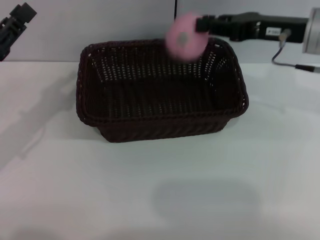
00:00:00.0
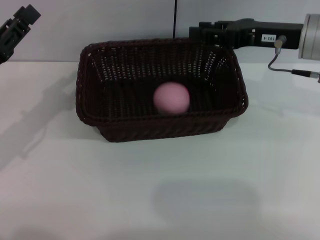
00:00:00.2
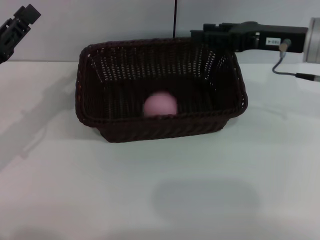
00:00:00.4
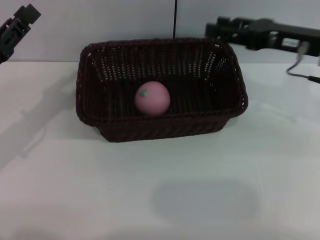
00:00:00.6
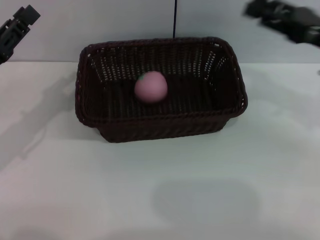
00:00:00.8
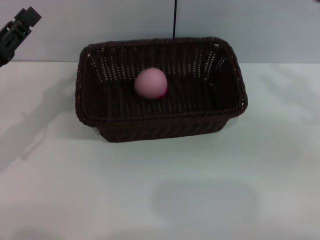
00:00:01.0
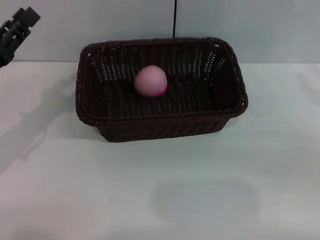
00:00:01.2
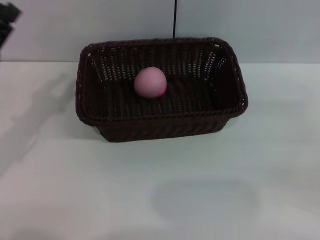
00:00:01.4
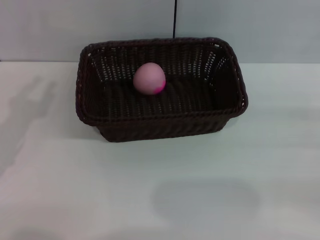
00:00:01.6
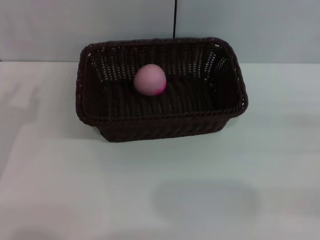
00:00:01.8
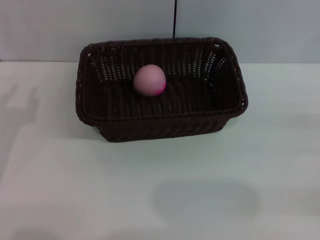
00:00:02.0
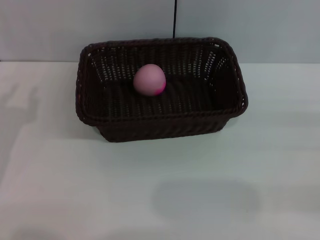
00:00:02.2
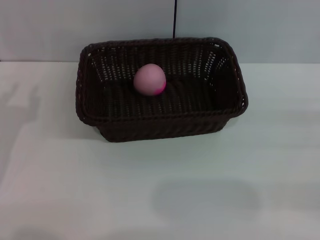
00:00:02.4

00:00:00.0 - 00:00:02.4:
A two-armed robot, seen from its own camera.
00:00:00.0 - 00:00:01.2: The right gripper moves to the right, backward and downward, roughly 20 cm, and opens.
00:00:01.2 - 00:00:02.4: The left gripper heads backward, covering about 5 cm.

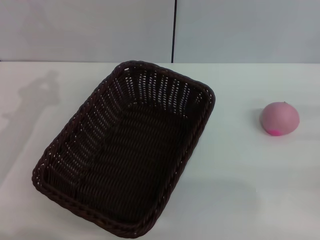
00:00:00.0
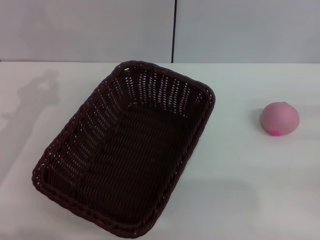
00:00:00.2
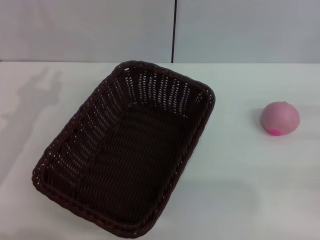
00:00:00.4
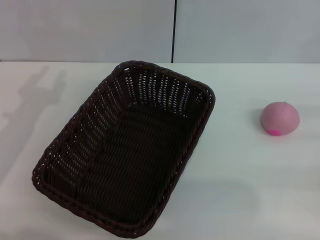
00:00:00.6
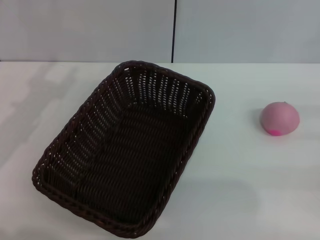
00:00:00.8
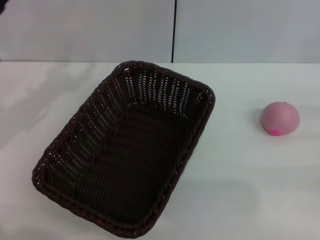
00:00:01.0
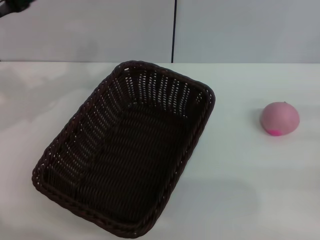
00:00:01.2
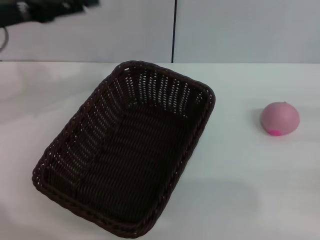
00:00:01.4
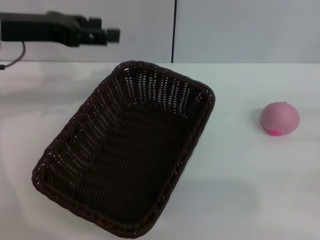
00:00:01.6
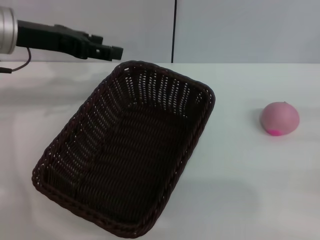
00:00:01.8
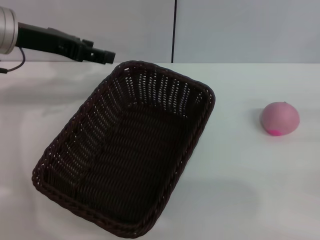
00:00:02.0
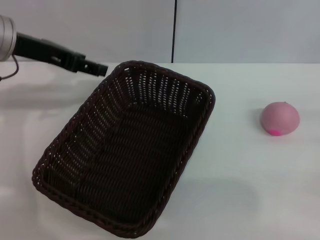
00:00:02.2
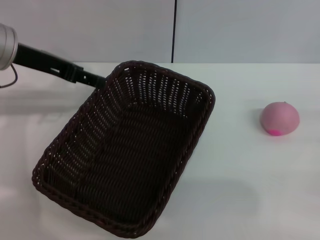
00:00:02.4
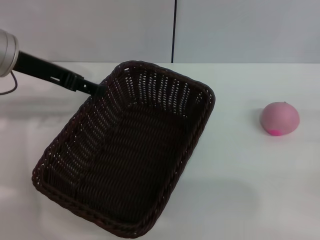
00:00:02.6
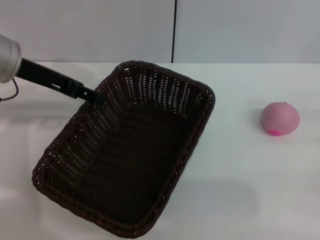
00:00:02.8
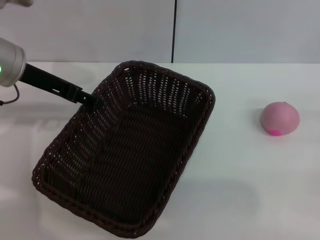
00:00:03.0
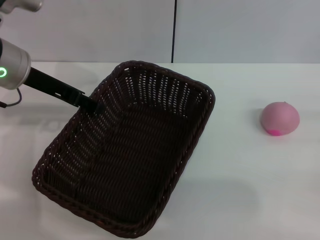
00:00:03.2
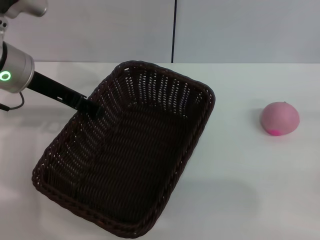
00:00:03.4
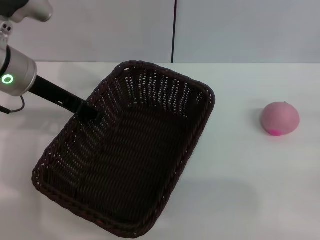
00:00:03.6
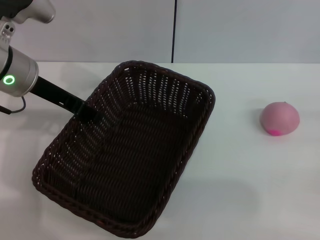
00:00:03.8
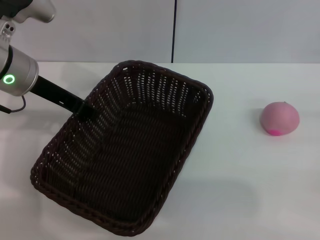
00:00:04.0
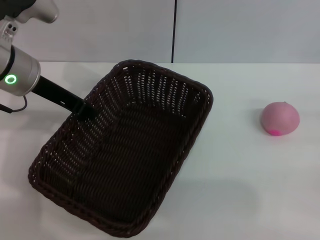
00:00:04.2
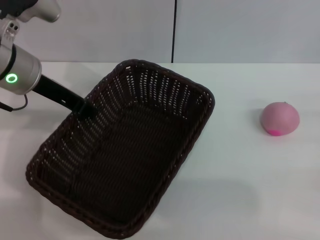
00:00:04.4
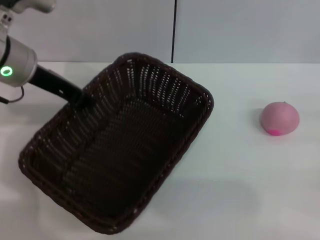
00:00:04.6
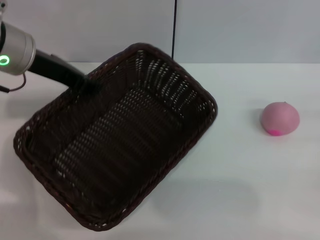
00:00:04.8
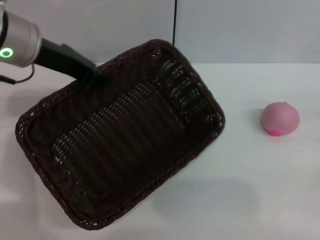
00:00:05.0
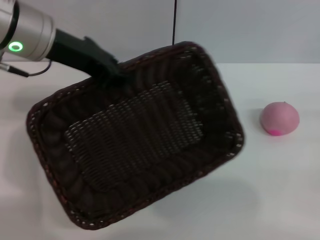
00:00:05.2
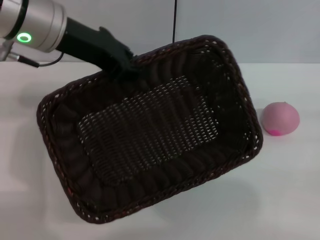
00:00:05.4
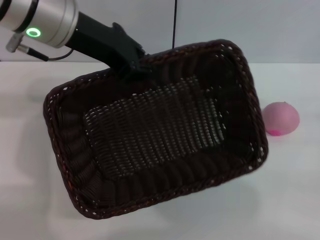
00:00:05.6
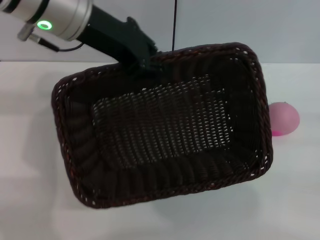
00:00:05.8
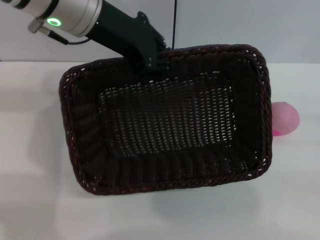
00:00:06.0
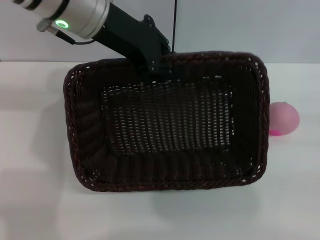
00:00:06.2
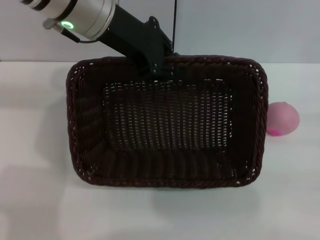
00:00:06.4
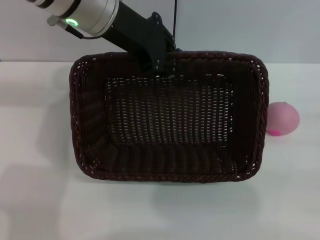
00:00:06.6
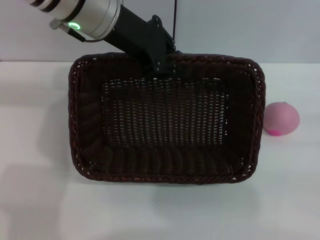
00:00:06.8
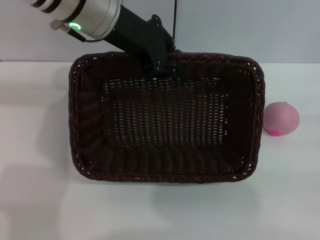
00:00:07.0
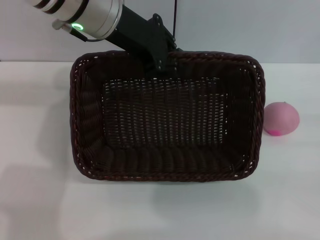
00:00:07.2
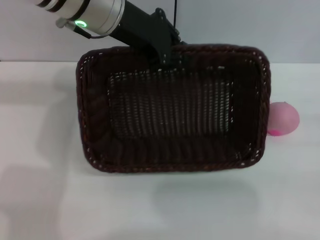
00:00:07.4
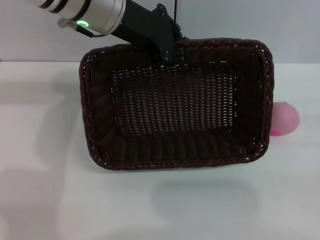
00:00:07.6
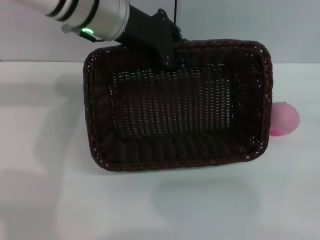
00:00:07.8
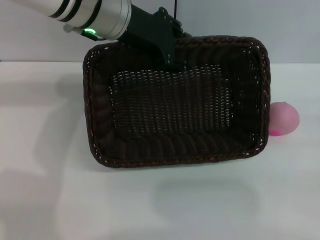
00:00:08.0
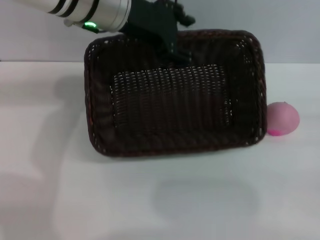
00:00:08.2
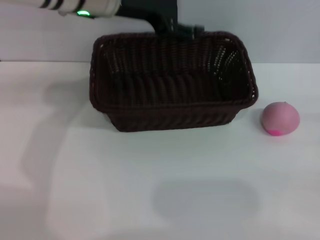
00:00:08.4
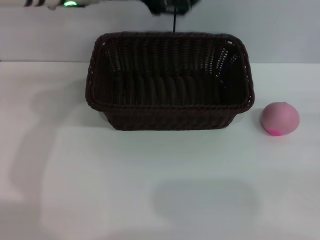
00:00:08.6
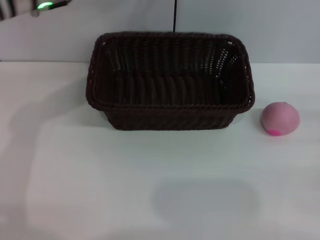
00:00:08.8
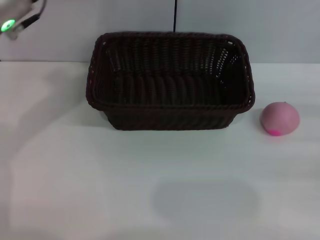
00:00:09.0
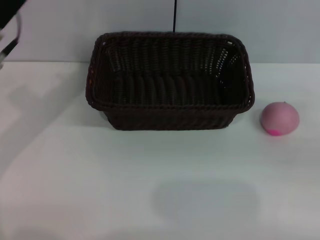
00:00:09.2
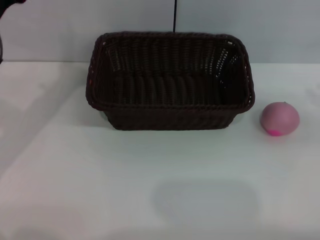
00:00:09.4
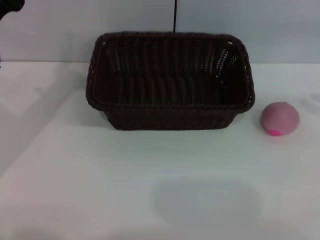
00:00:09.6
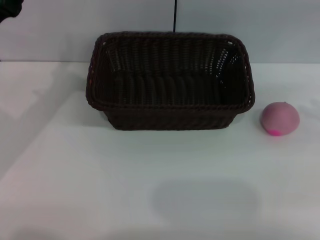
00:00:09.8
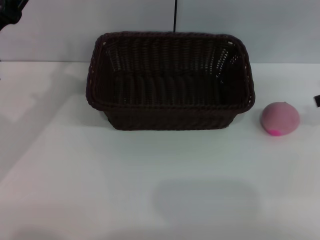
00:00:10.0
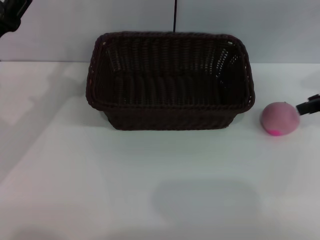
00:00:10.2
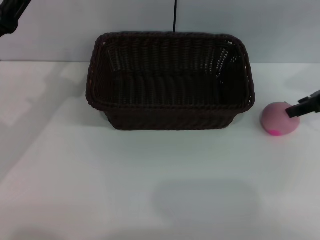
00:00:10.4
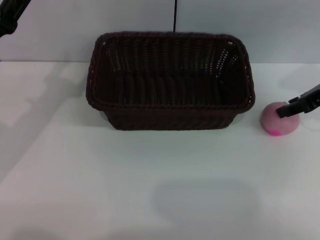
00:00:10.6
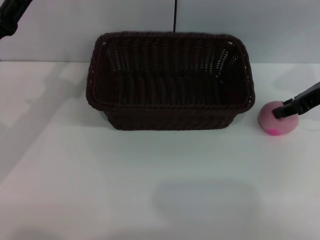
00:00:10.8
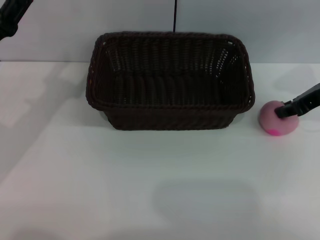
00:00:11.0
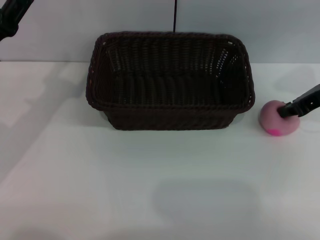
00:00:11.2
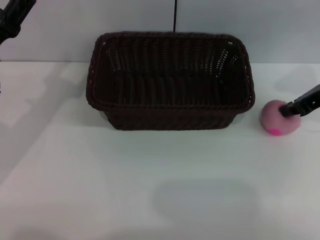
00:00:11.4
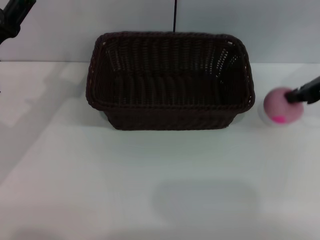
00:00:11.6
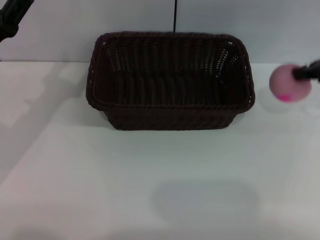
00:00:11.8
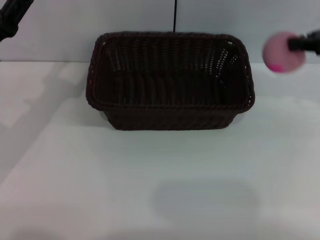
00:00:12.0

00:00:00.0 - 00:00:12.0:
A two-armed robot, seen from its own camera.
Step, 00:00:00.0 - 00:00:05.4: Pick up the dark basket with the left gripper.
Step, 00:00:05.6 - 00:00:08.6: Place the dark basket in the center of view with the right gripper.
00:00:00.0 - 00:00:01.6: The left gripper travels upward and forward by roughly 15 cm, and opens.
00:00:03.0 - 00:00:04.4: The left gripper closes its fingers.
00:00:04.4 - 00:00:06.0: The left gripper shifts roughly 10 cm to the right and upward.
00:00:06.0 - 00:00:07.6: There are only small adjustments of the grippers.
00:00:07.6 - 00:00:09.0: The left gripper heads to the left, covering about 10 cm, and opens.
00:00:09.0 - 00:00:10.4: The right gripper shifts some 20 cm forward, upward and to the left. The left gripper moves downward, to the left and backward, about 15 cm.
00:00:10.4 - 00:00:12.0: The right gripper heads upward, covering about 5 cm, and closes.

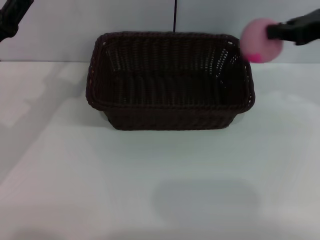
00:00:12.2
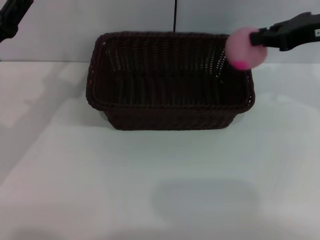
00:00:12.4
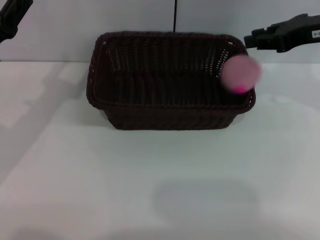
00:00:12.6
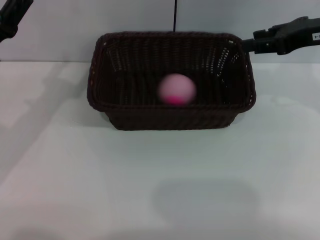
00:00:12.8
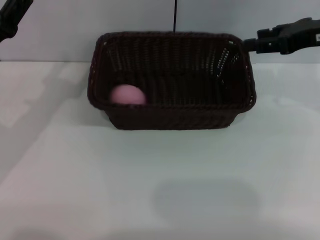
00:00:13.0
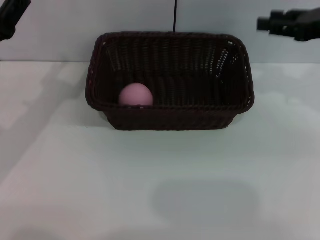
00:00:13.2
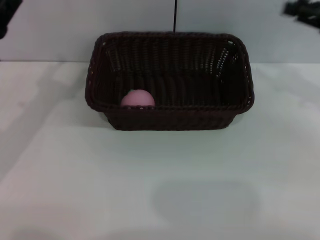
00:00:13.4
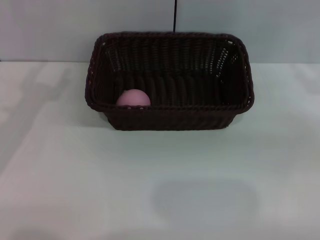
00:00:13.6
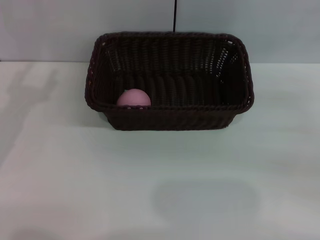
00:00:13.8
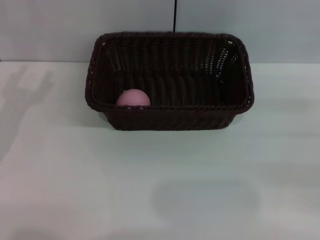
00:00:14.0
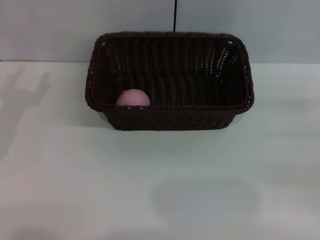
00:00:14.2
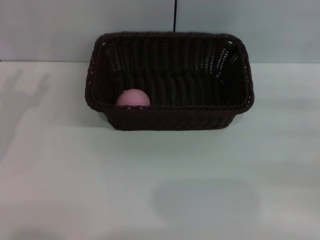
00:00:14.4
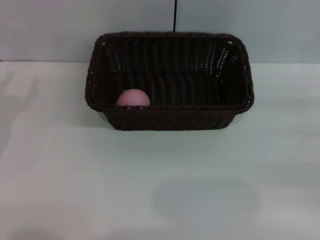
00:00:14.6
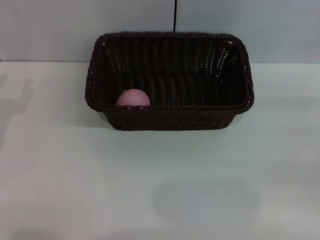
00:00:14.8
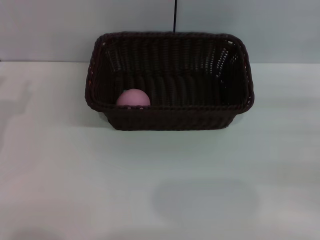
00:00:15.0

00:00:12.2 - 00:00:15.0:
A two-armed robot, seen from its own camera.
00:00:12.2 - 00:00:13.6: The right gripper is displaced downward, to the right and backward by approximately 15 cm, and opens up.

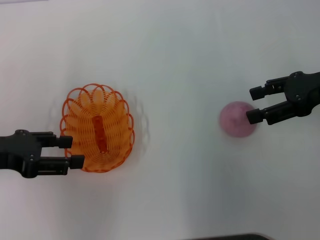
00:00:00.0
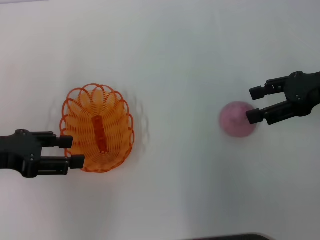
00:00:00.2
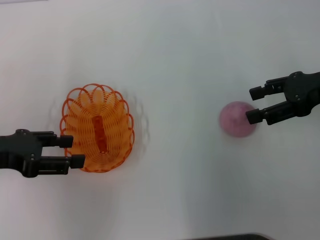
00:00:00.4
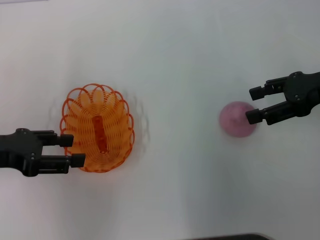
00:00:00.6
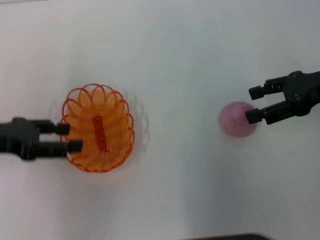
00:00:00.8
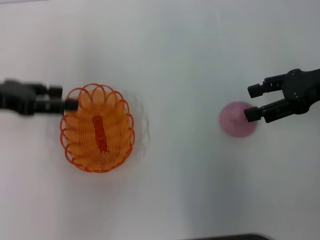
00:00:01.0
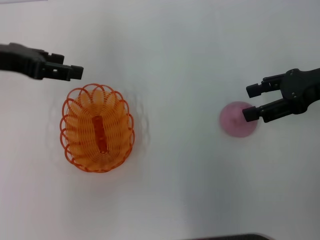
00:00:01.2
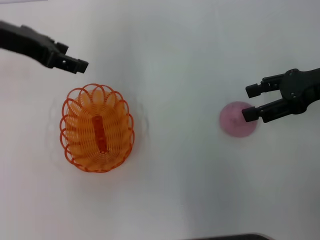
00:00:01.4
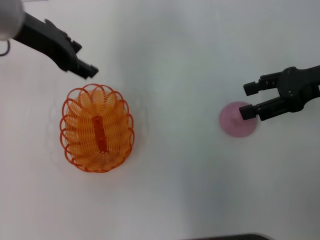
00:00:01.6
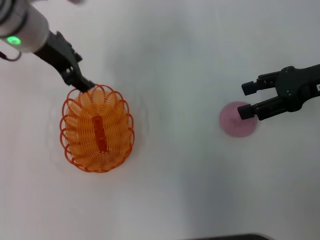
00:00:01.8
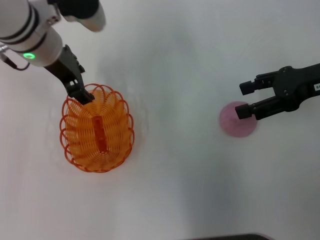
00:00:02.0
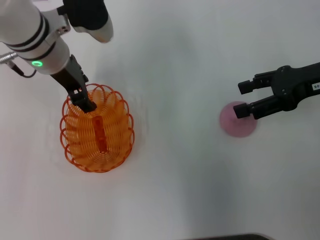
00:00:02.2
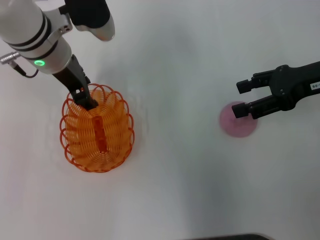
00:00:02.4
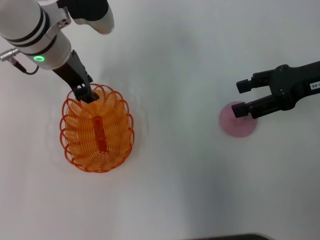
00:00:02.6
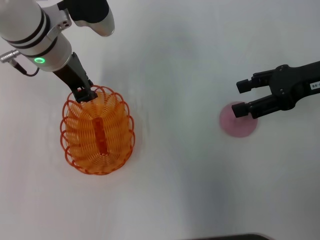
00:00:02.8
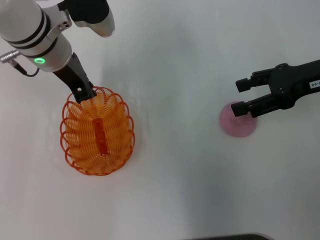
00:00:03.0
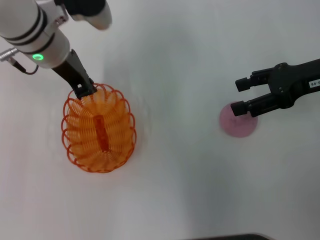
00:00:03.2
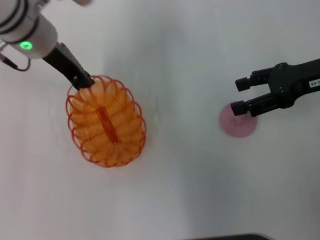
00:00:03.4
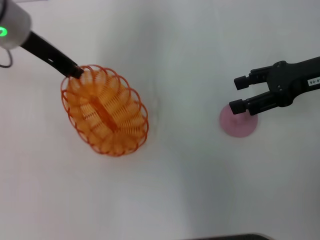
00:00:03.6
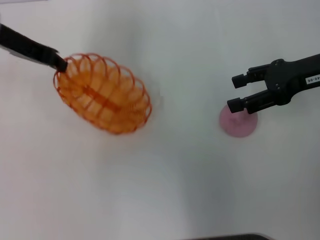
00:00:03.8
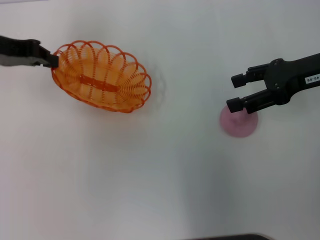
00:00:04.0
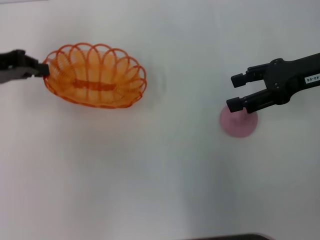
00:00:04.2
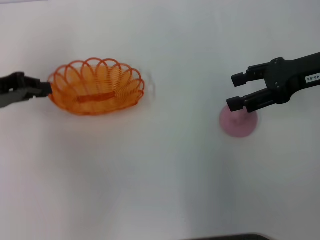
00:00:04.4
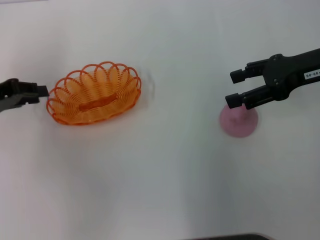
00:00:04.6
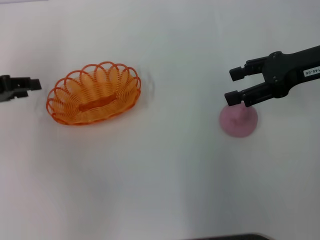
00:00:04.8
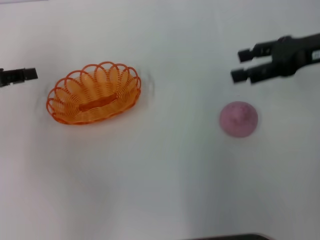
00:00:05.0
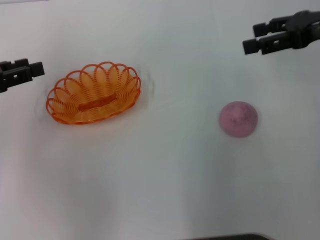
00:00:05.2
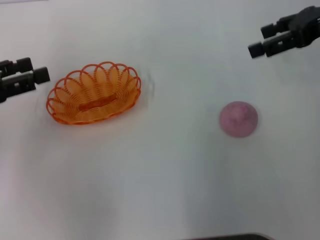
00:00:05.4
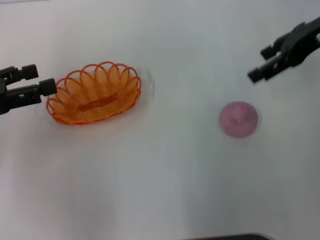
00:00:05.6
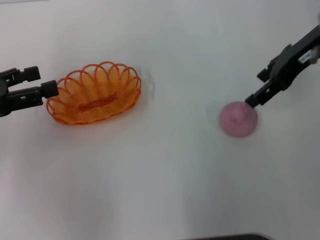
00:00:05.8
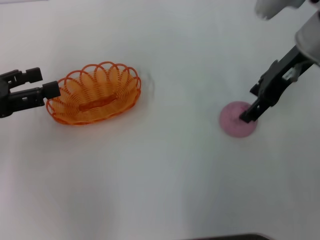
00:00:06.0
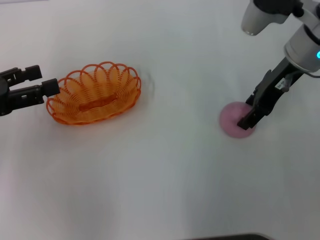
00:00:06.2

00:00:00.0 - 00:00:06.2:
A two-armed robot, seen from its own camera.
Step, 00:00:00.0 - 00:00:03.4: Pick up the basket with the left gripper.
Step, 00:00:03.6 - 00:00:04.8: Place the basket in the center of view with the left gripper.
00:00:00.0 - 00:00:01.6: The left gripper shifts roughly 20 cm forward, to the right and upward.
00:00:01.6 - 00:00:03.2: The left gripper moves downward, about 5 cm, and closes its fingers.
00:00:03.2 - 00:00:04.6: The left gripper travels to the left and backward by some 20 cm.
00:00:04.6 - 00:00:06.2: The right gripper heads to the left, covering roughly 5 cm, while the left gripper shifts about 5 cm backward, and opens its fingers.
